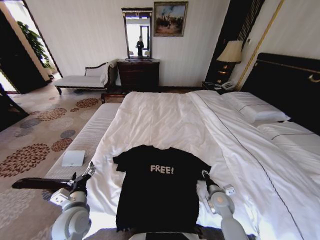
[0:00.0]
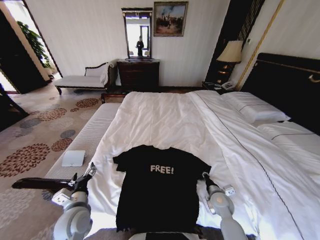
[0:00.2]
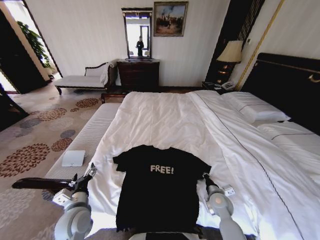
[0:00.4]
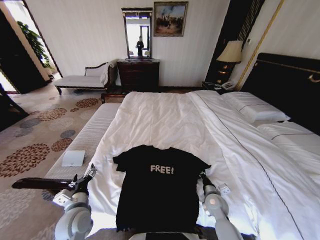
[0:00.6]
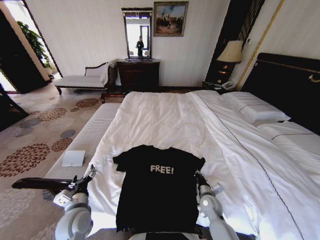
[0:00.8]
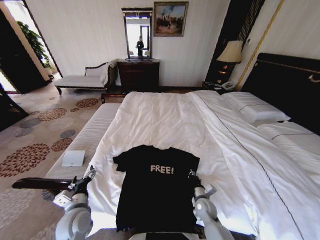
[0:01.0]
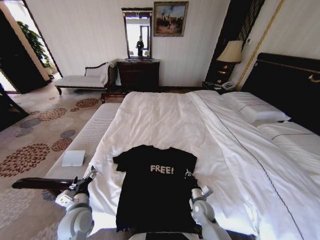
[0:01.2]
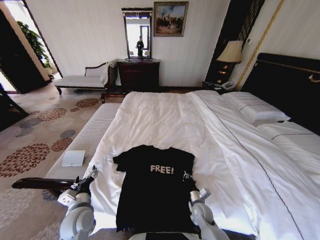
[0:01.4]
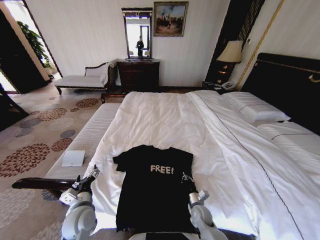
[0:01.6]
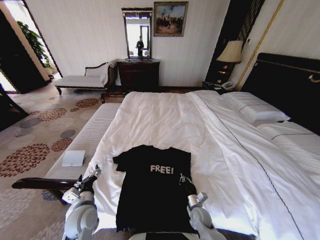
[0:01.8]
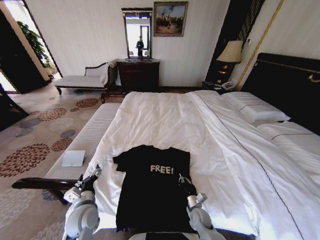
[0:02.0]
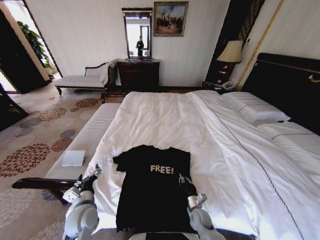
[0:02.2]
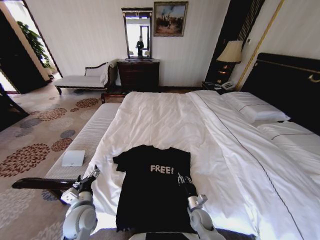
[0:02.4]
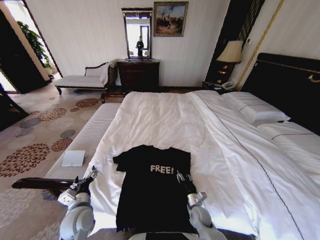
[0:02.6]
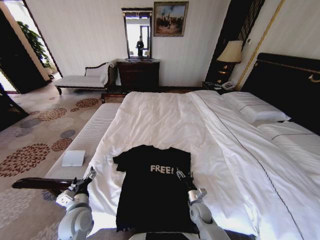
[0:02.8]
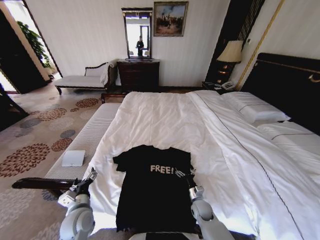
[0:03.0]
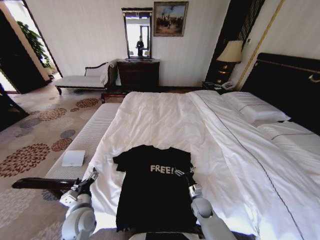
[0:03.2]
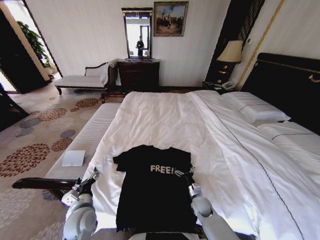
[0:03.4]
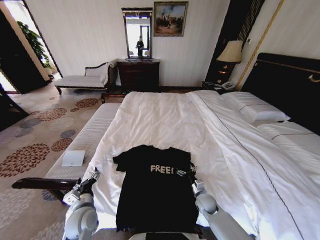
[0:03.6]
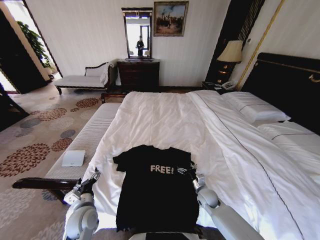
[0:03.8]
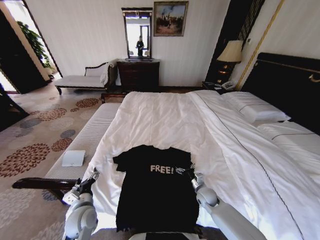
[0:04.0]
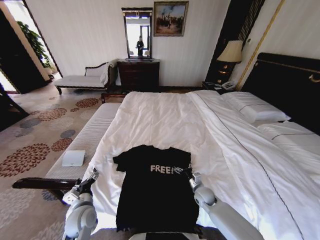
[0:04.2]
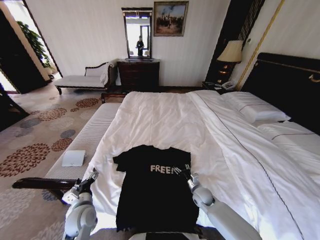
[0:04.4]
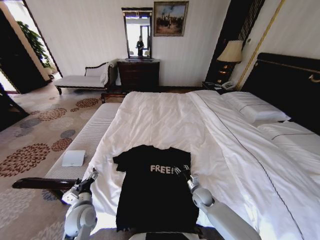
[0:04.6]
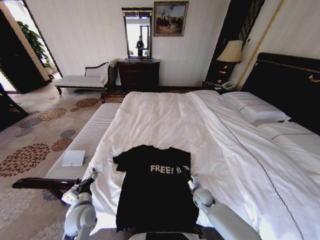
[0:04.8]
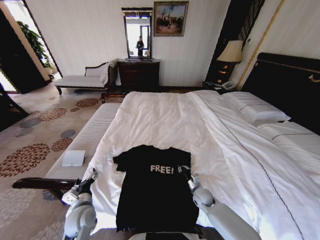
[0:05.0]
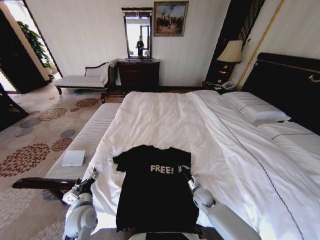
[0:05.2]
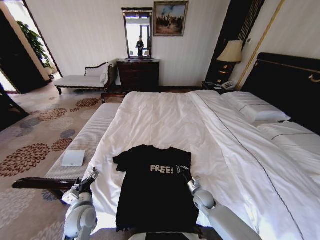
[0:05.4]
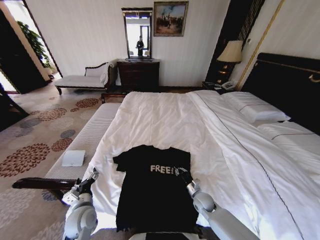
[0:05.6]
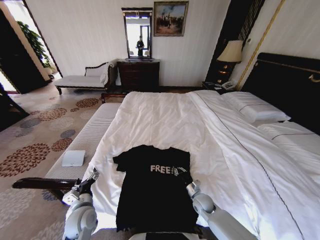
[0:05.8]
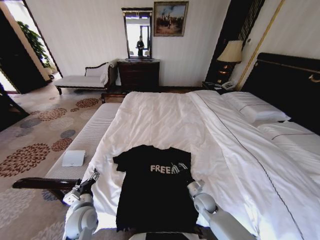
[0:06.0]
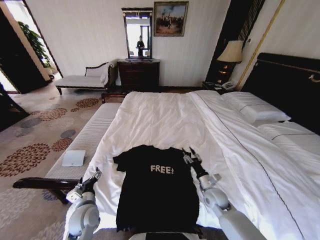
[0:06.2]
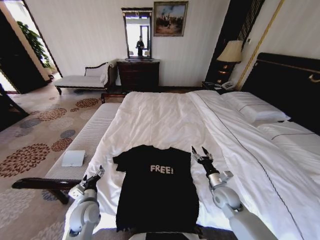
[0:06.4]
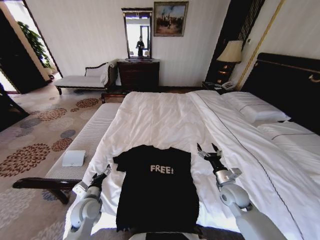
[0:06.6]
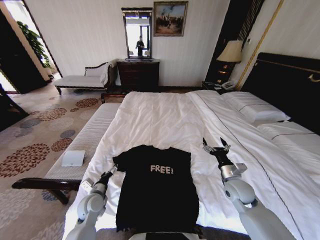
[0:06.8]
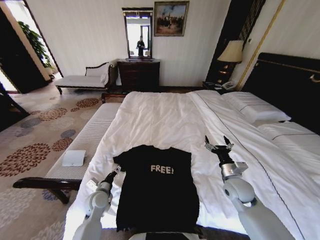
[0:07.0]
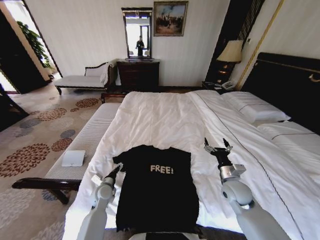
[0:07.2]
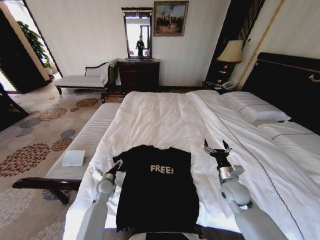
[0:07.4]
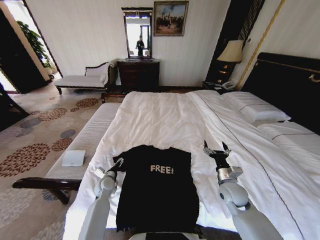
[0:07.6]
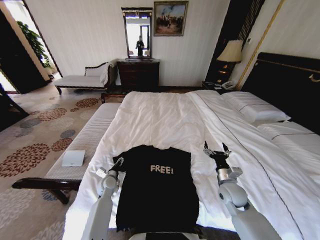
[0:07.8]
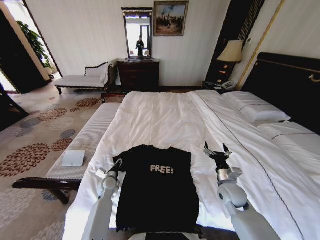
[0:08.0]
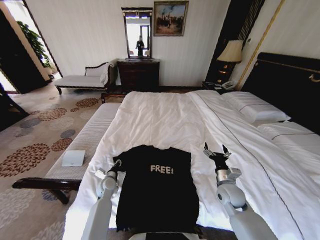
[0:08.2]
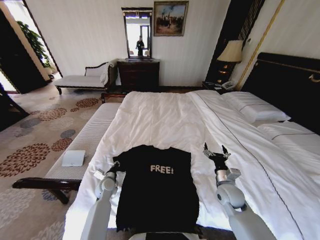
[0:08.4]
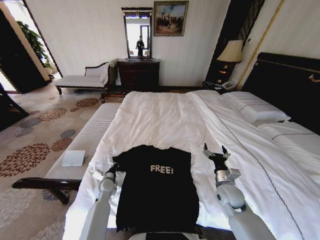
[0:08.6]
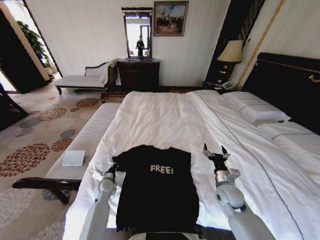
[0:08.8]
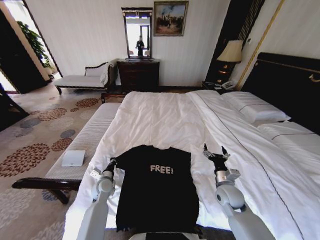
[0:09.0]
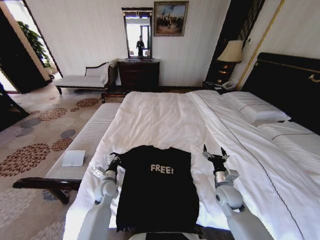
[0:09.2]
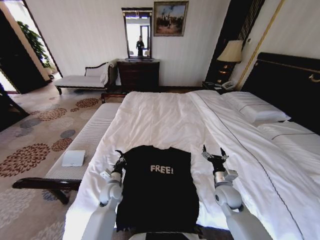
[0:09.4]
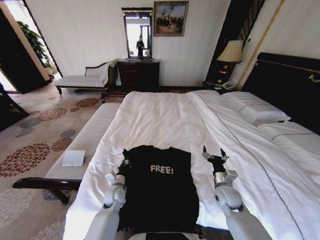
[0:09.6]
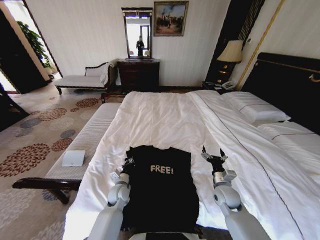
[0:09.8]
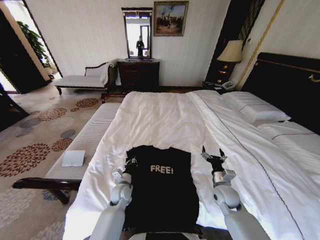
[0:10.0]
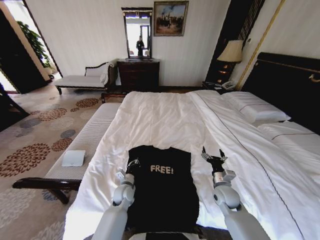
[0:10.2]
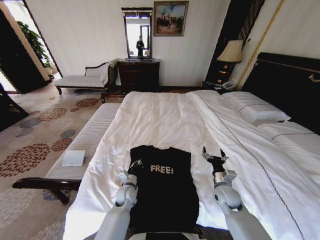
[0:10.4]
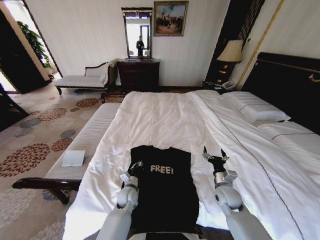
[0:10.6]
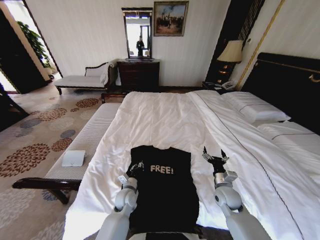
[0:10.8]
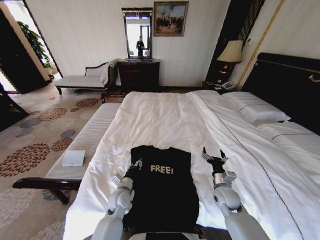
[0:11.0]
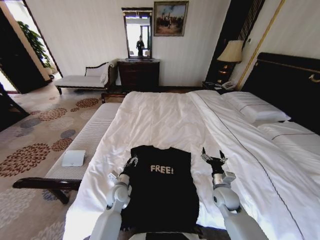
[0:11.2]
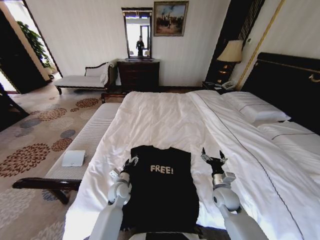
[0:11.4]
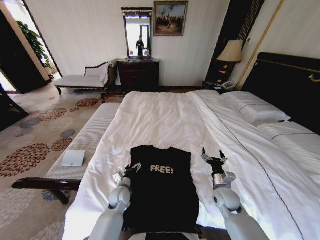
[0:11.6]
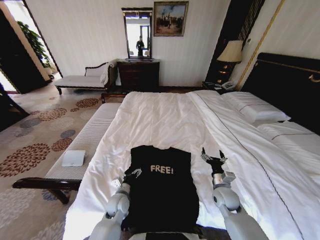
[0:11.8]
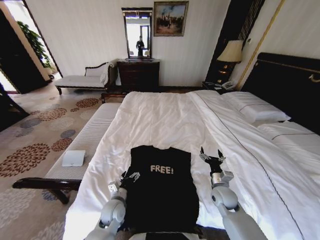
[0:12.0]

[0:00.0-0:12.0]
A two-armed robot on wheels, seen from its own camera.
Task of the whole recording: Fold the clothes on the bed.
0:00.0 to 0:01.6: The right gripper moves downward and to the left, about 10 cm, and closes.
0:01.6 to 0:03.0: The right gripper opens up.
0:03.0 to 0:04.4: The right gripper is displaced forward by about 5 cm.
0:04.4 to 0:06.0: The right gripper closes its fingers.
0:06.0 to 0:07.6: The right gripper moves upward and to the right, approximately 15 cm, and opens its fingers; the left gripper heads forward and downward, covering approximately 15 cm.
0:07.6 to 0:09.0: The left gripper closes.
0:09.0 to 0:10.4: The left gripper moves to the right, some 10 cm.
0:10.4 to 0:12.0: The left gripper is displaced backward by some 5 cm, and opens.

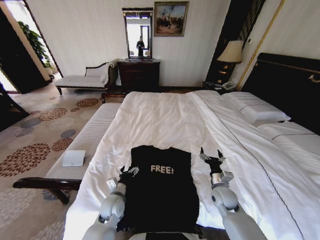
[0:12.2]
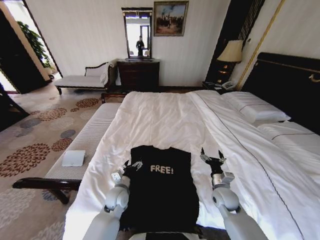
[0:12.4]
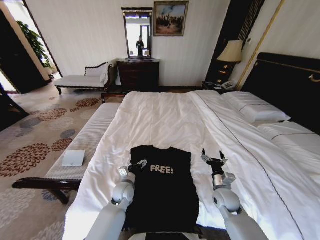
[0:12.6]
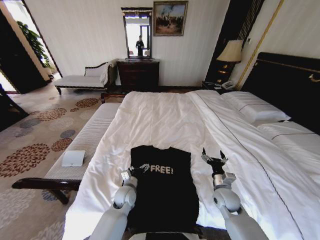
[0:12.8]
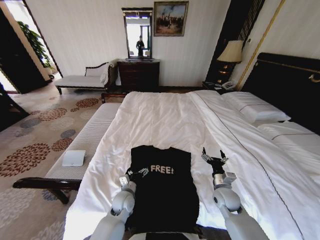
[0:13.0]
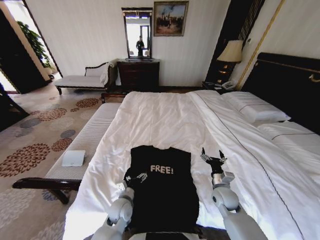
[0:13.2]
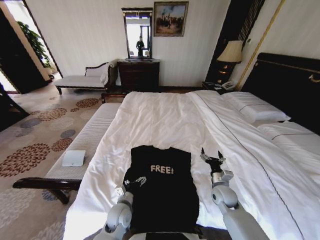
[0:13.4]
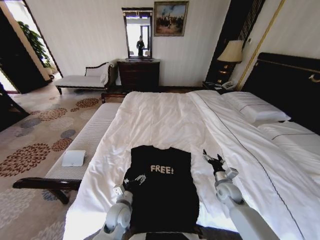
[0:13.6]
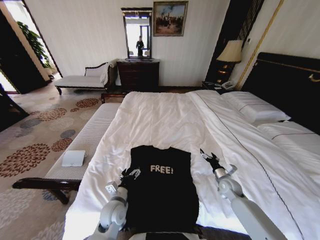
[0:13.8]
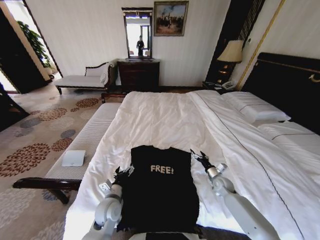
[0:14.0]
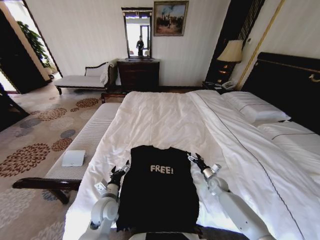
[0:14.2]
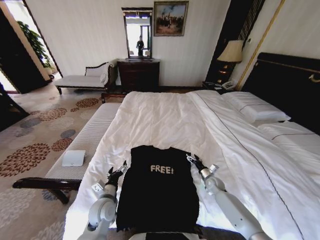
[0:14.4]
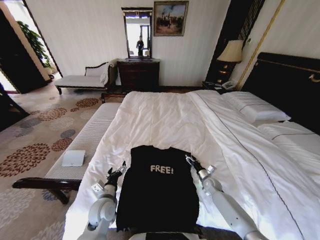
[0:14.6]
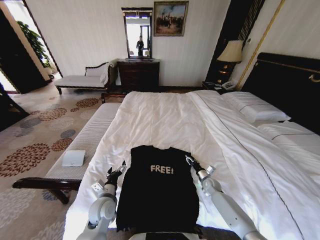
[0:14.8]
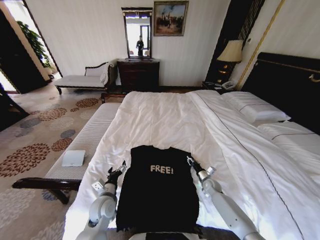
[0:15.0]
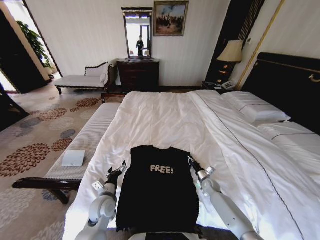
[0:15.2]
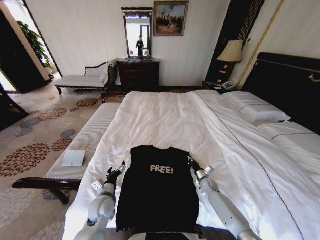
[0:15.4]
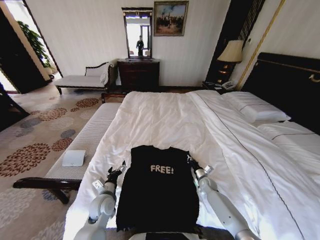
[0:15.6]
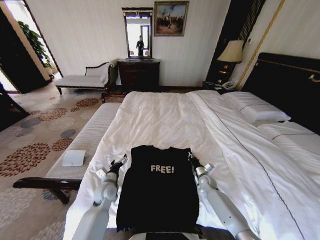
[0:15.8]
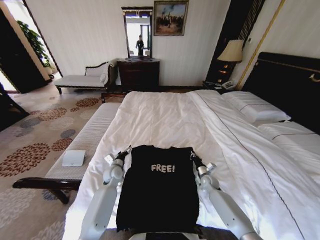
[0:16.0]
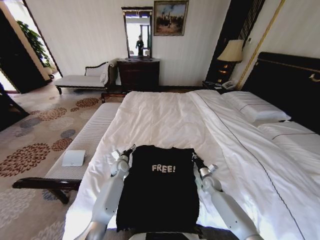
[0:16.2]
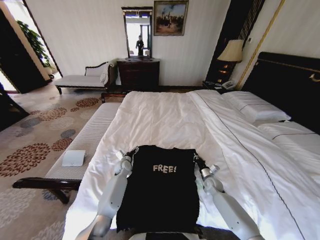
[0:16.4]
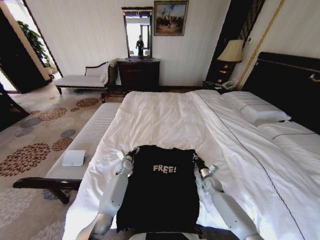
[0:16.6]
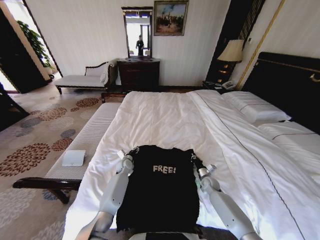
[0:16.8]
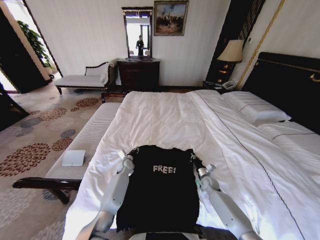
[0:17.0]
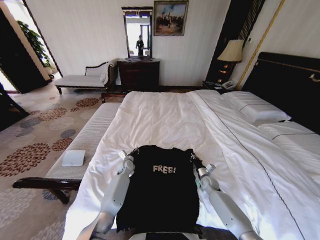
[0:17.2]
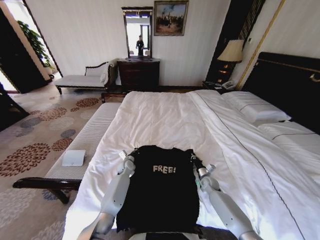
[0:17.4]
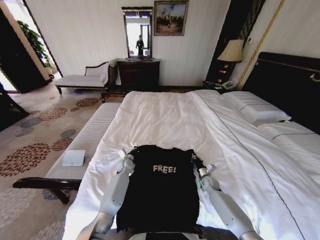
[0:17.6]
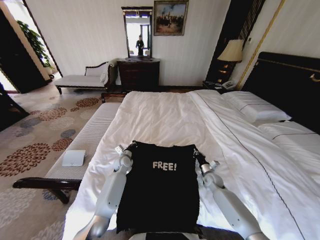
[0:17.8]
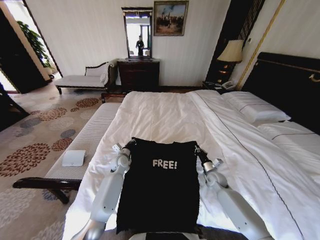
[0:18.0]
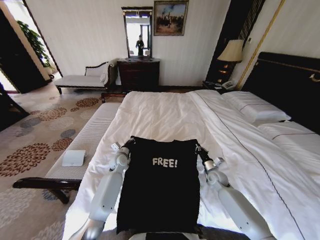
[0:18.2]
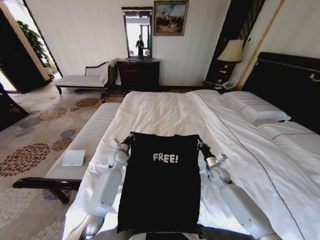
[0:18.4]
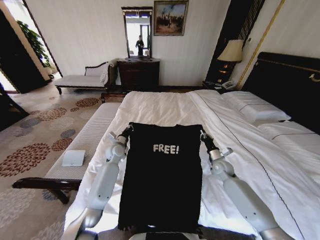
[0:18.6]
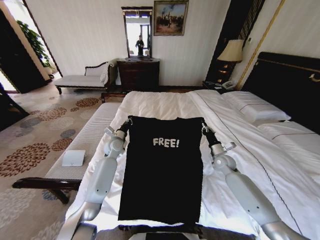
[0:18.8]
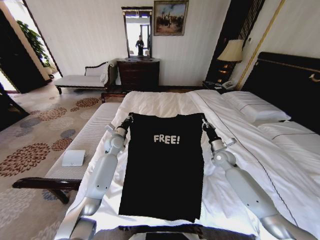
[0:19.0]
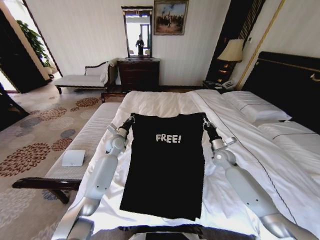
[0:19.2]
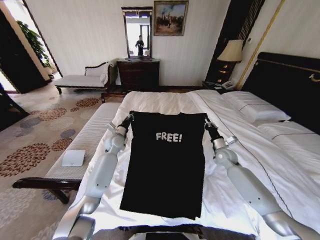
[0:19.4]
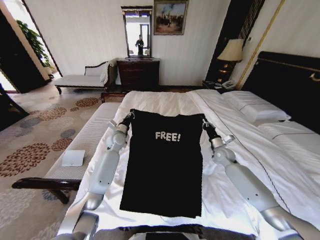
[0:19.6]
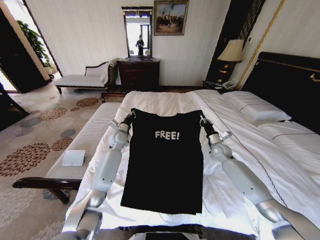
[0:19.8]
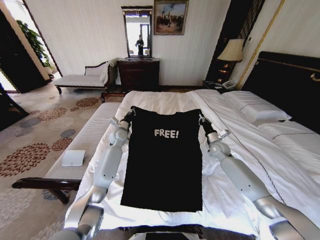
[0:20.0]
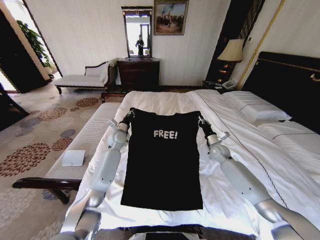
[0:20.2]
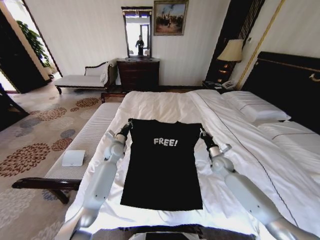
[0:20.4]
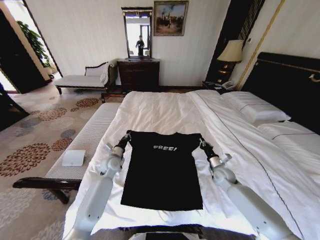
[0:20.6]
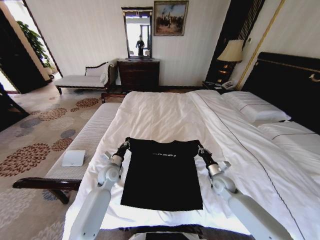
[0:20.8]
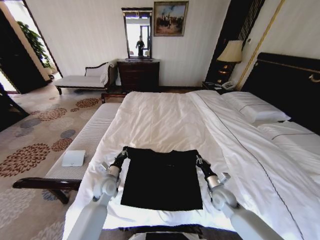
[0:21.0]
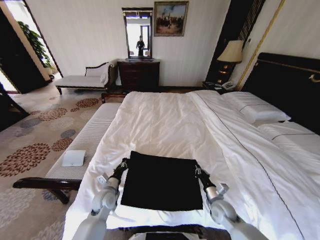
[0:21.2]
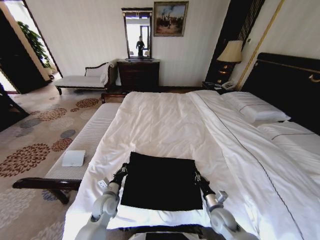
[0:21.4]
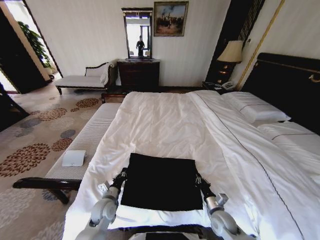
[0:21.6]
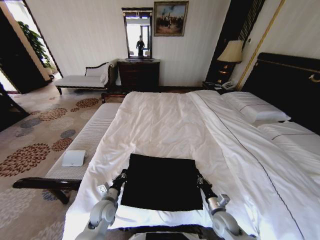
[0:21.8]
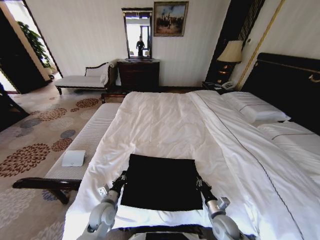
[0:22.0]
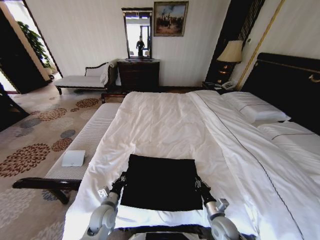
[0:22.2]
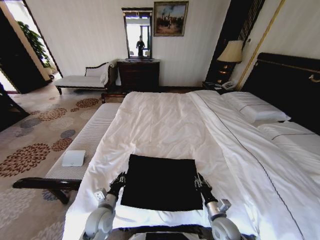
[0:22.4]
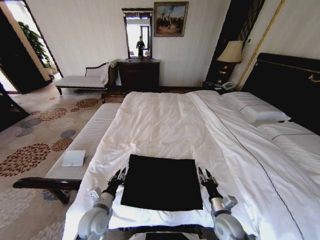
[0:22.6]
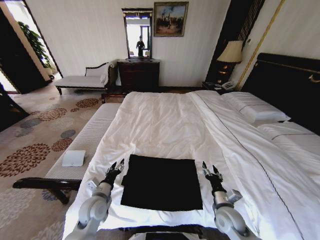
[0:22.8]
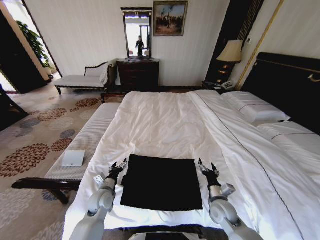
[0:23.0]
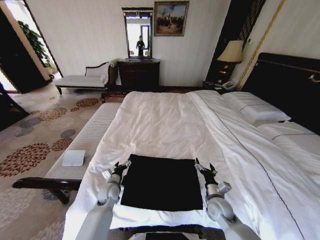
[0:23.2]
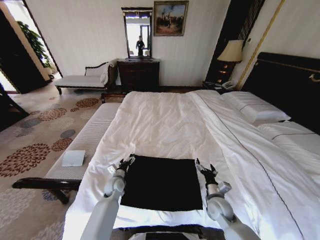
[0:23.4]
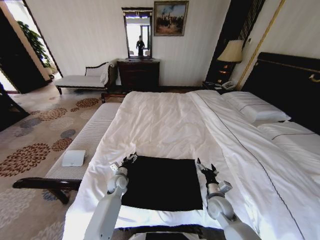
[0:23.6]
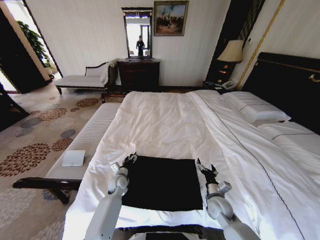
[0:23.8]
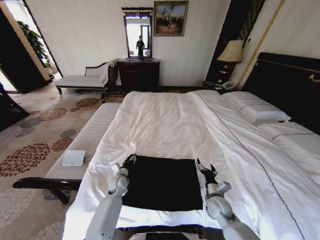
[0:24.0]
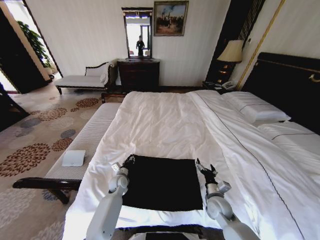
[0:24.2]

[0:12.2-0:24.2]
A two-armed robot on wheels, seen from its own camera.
Task of the whole recording: Fold the clothes on the bed.
0:12.2 to 0:13.8: The left gripper moves roughly 5 cm forward and comes back; the right gripper is displaced to the right and forward by roughly 10 cm.
0:13.8 to 0:15.2: The left gripper travels to the left by roughly 5 cm, while the right gripper travels downward by about 10 cm, and closes up.
0:15.2 to 0:16.6: The left gripper moves forward, about 20 cm.
0:16.6 to 0:18.2: The grippers both shift upward by roughly 10 cm. The left gripper closes.
0:18.2 to 0:19.8: Both grippers travel together upward and forward, about 15 cm.
0:19.8 to 0:21.2: The grippers both shift backward and downward by roughly 25 cm.
0:21.2 to 0:22.6: Both grippers travel together backward, roughly 10 cm. The right gripper opens up.
0:22.6 to 0:24.2: The left gripper shifts roughly 20 cm forward and downward, and opens, then closes once more, while the right gripper travels forward by roughly 5 cm, and opens its fingers.
